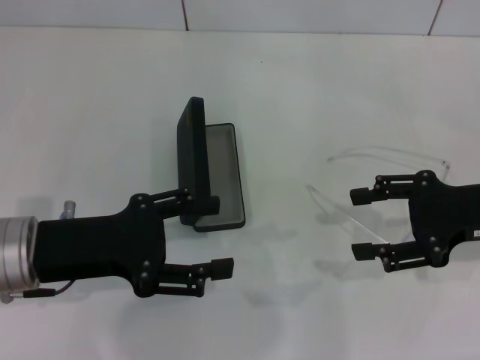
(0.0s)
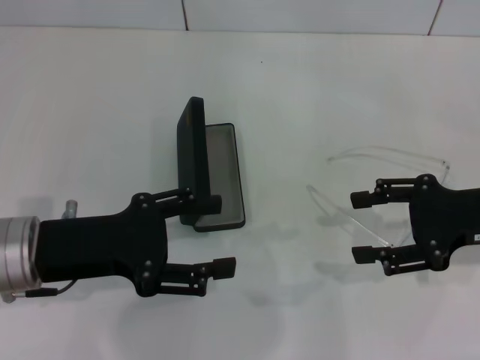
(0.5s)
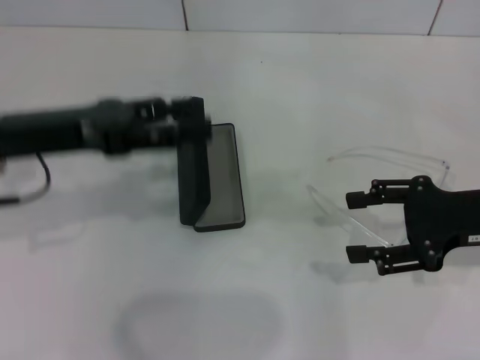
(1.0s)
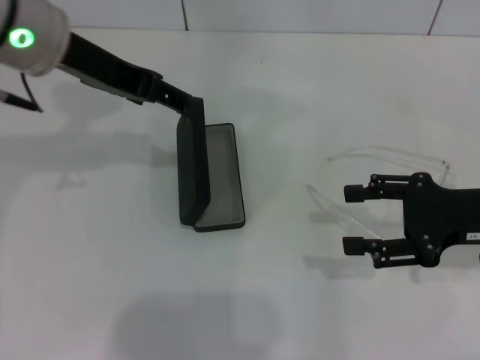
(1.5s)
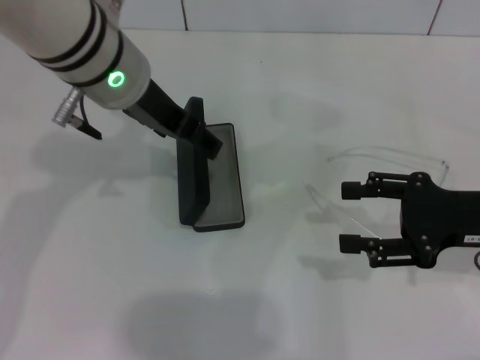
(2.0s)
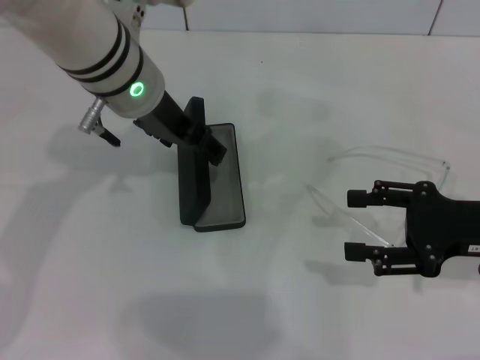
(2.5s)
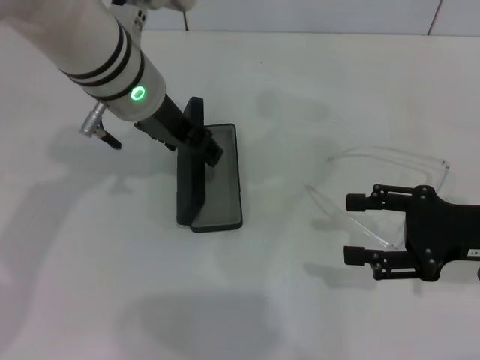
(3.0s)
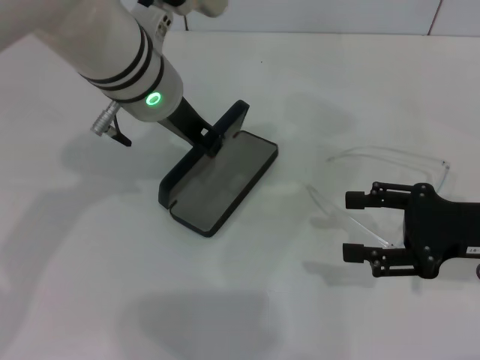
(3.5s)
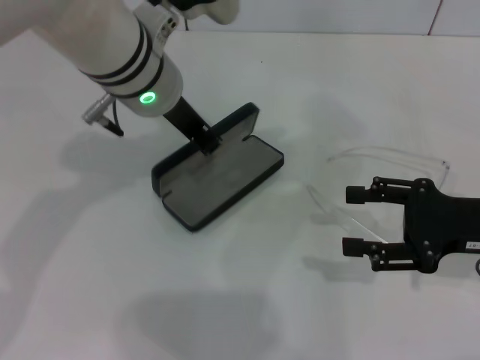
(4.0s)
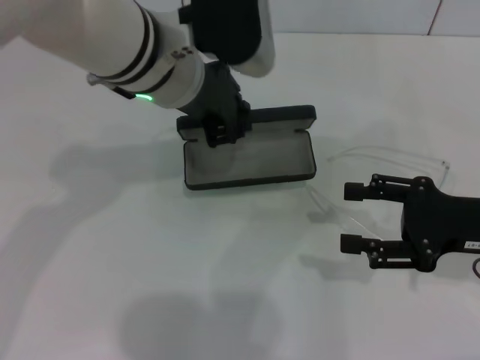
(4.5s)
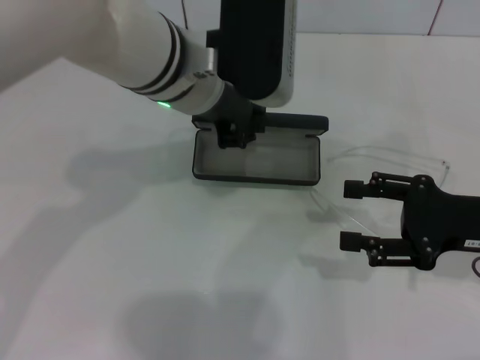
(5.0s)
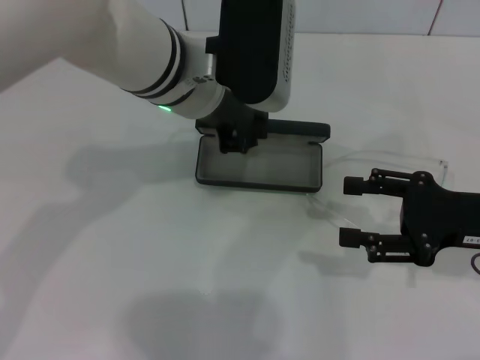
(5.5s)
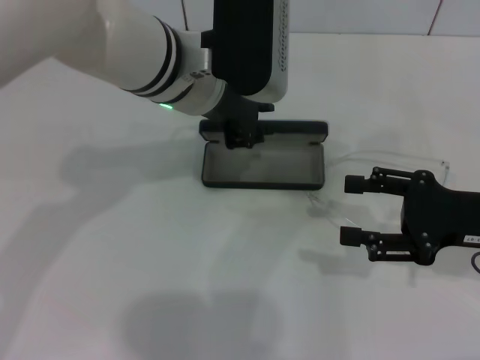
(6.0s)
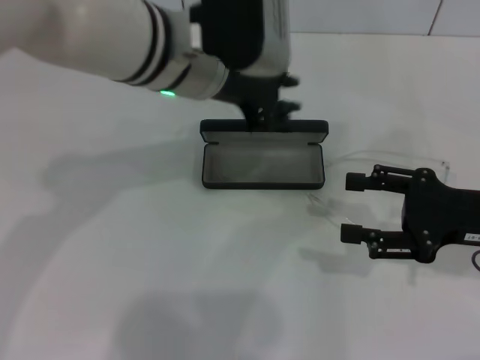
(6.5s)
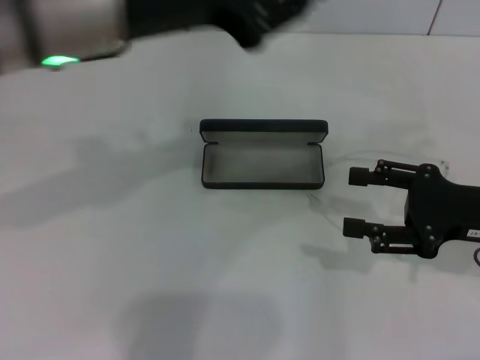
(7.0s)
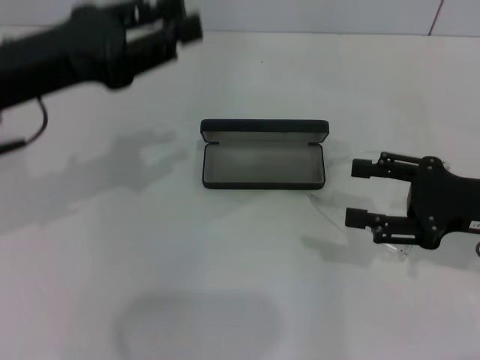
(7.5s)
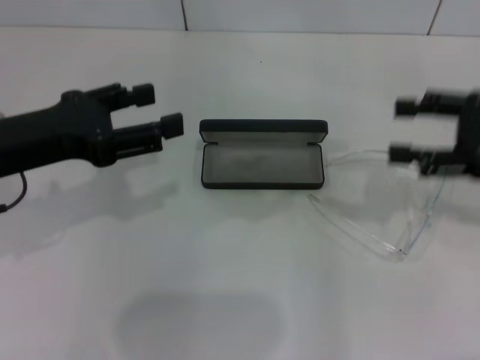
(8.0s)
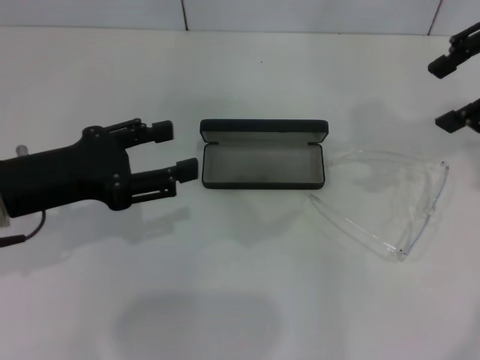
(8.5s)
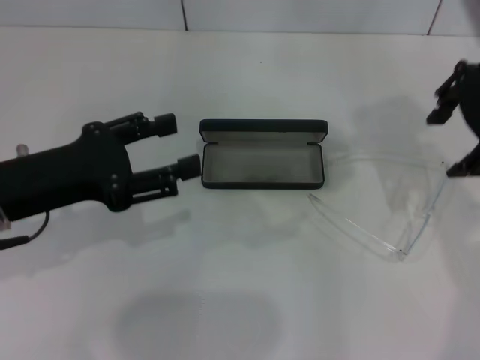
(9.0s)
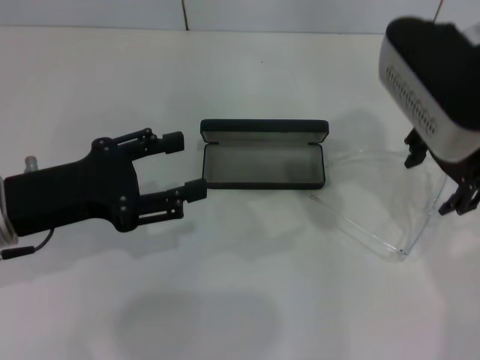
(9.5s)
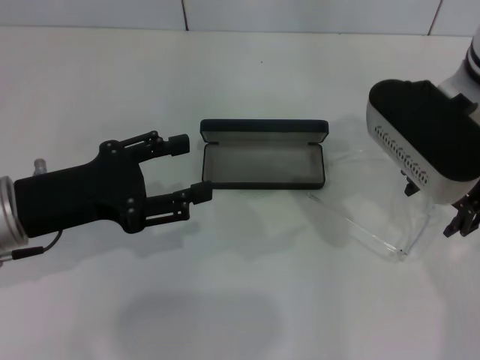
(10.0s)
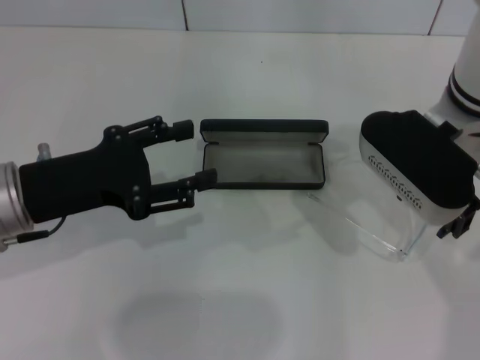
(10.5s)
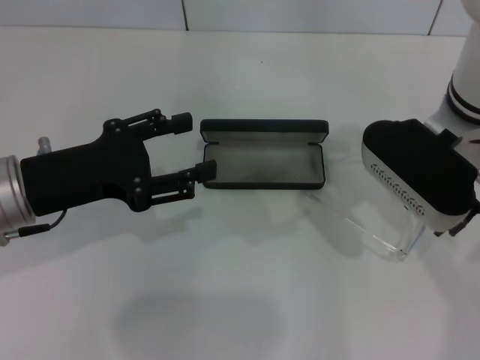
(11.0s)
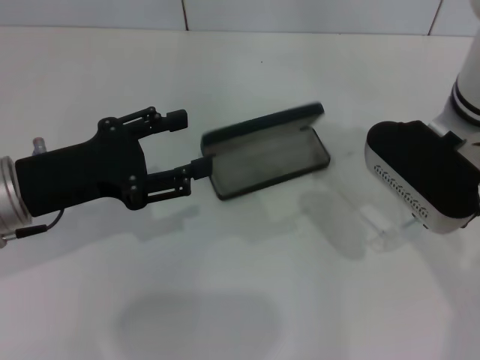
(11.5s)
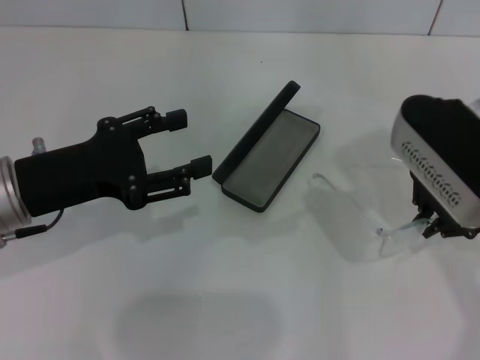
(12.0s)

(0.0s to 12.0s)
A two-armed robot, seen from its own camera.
Step, 0.0s - 3.0s: Grab the glasses case with your left hand.
Step, 3.5s - 6.0s: Place the glasses case in the center of the table with your left hand.
Step, 6.5s - 11.0s: Grab the eyeglass frame with your right hand.
0.0s - 2.0s: The left gripper moves forward, to the right and upward, some 20 cm.
2.0s - 4.0s: The left gripper closes up.
6.0s - 8.0s: The left gripper heads to the left and backward, covering approximately 20 cm, and opens up; the right gripper is displaced upward by some 10 cm.
8.0s - 10.0s: The right gripper heads to the left, covering approximately 15 cm, while the left gripper moves about 5 cm.
10.0s - 12.0s: The right gripper closes.

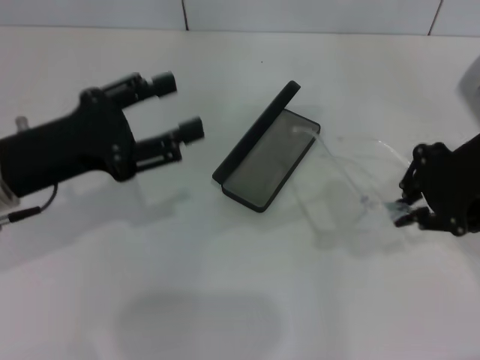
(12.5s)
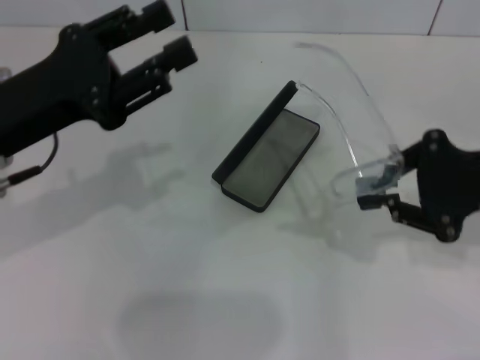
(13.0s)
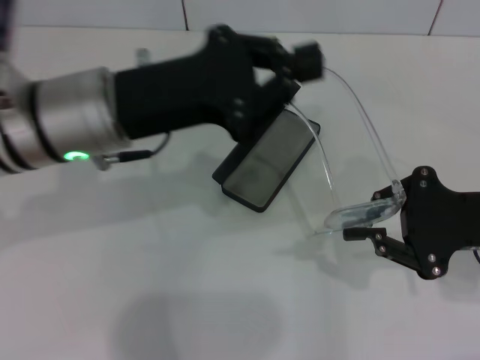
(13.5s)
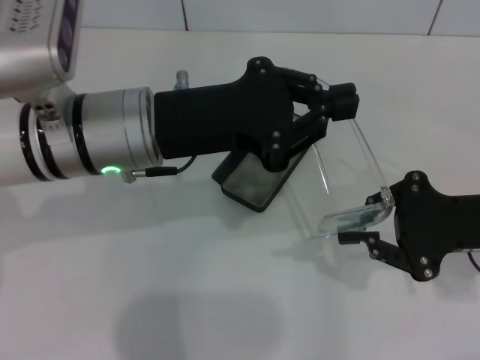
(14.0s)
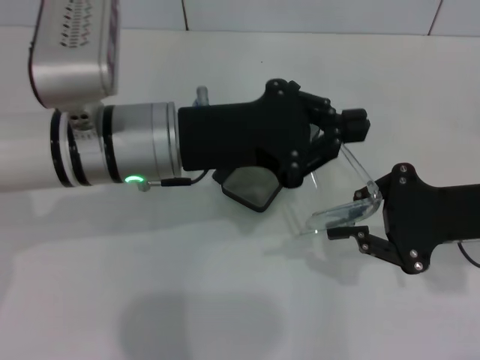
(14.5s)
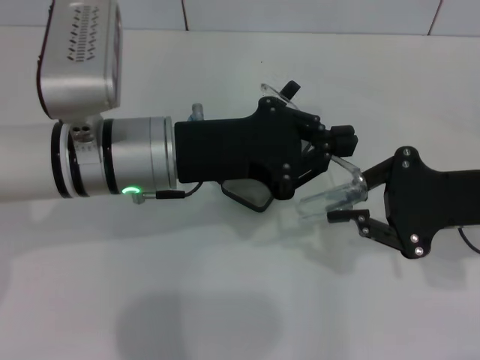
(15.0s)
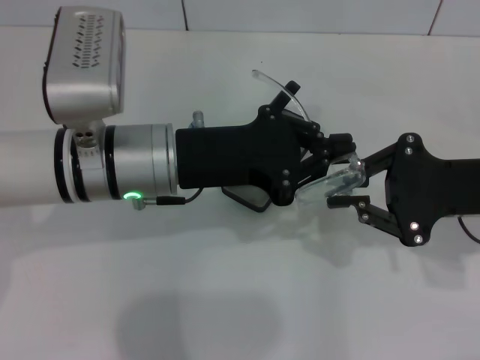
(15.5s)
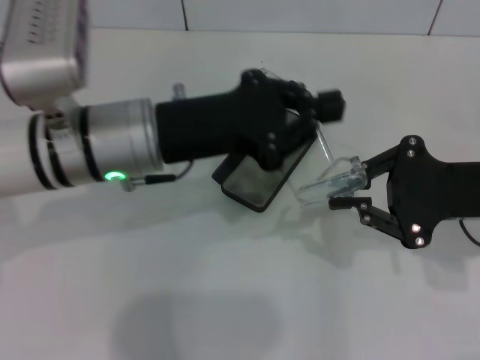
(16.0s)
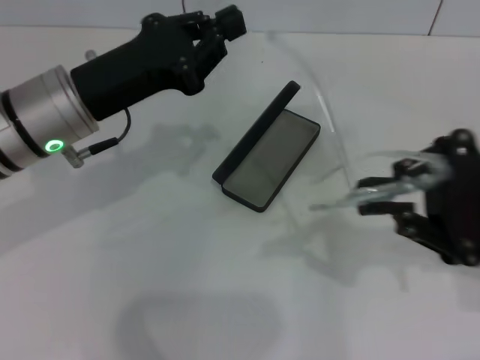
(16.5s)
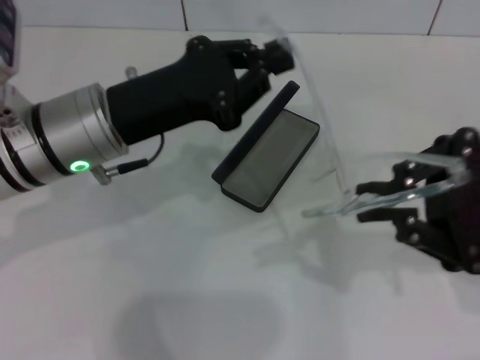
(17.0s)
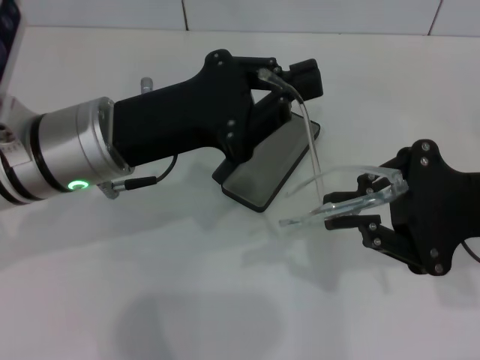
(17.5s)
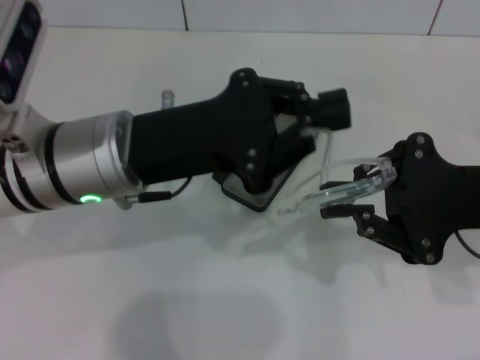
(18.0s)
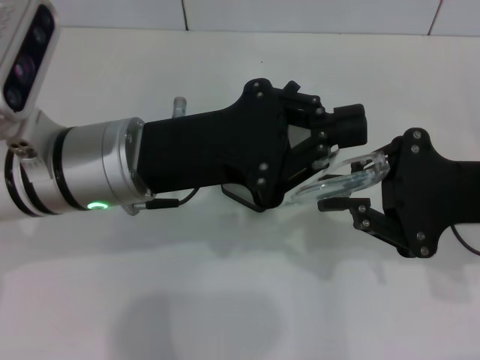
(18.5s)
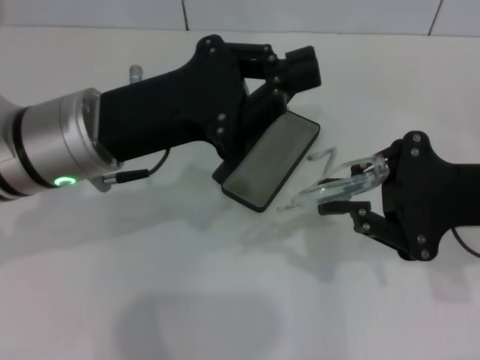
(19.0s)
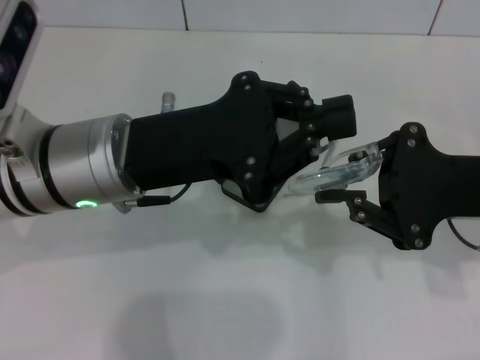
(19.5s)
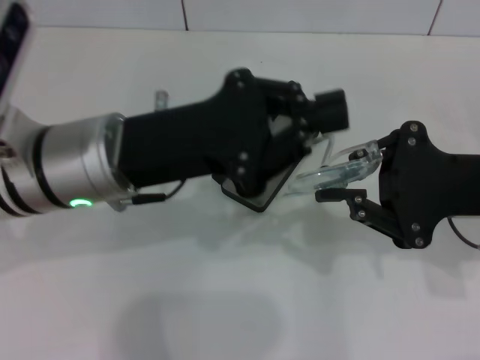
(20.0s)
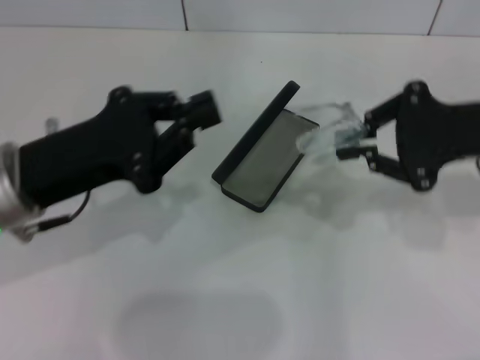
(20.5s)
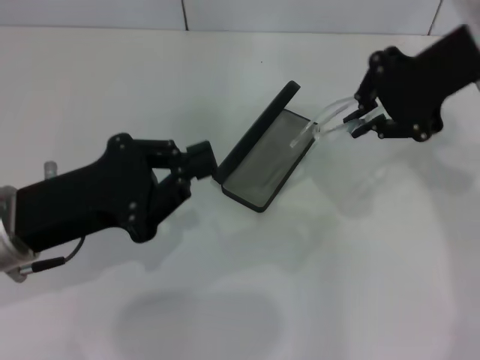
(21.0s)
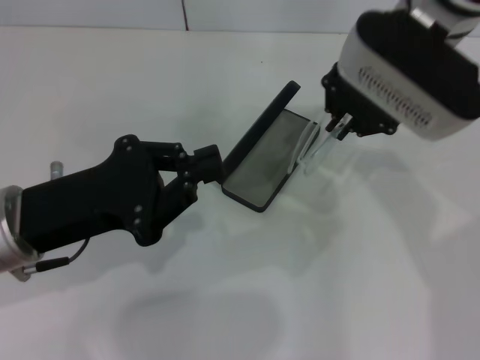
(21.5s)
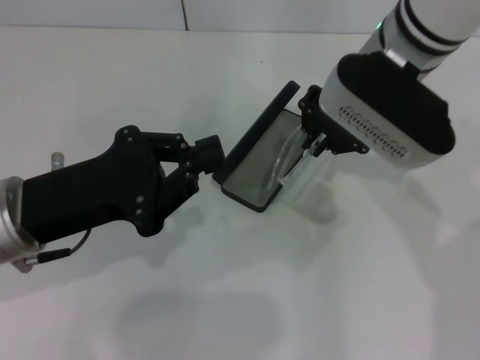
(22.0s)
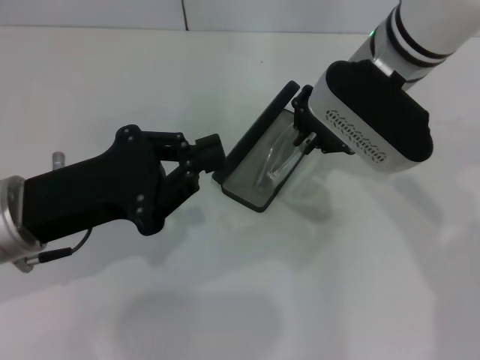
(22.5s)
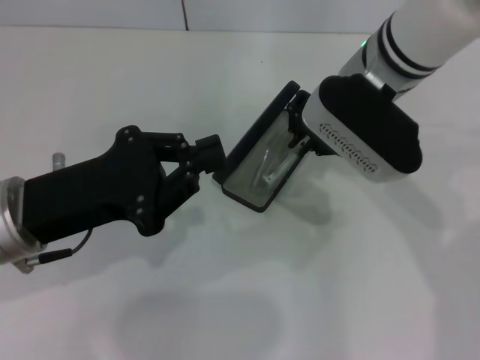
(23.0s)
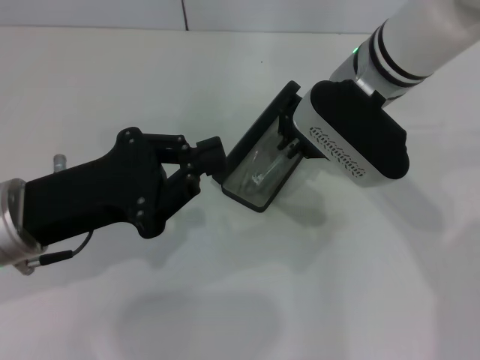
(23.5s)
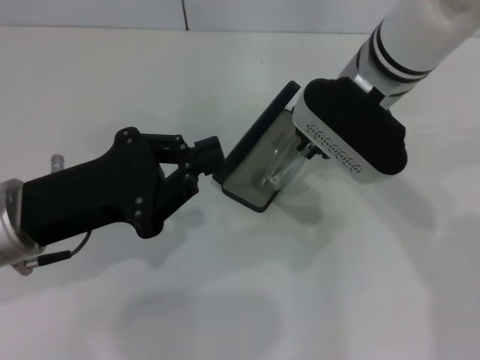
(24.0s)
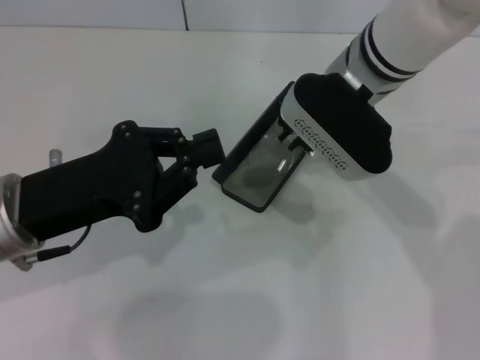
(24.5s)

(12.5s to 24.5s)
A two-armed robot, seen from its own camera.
Step, 12.5s - 19.5s: Fold the frame with your left hand.
12.5s - 14.5s: The right gripper moves downward, roughly 10 cm, while the left gripper goes approximately 15 cm to the right, and closes up.
14.5s - 16.5s: The left gripper heads to the left, covering roughly 5 cm.
16.5s - 18.5s: The left gripper heads to the right, covering roughly 5 cm.
18.5s - 20.5s: The left gripper heads to the left, covering about 10 cm, while the right gripper shifts by some 5 cm.
20.5s - 22.5s: The right gripper shifts about 15 cm to the left and forward.
22.5s - 24.5s: The grippers move only a little.

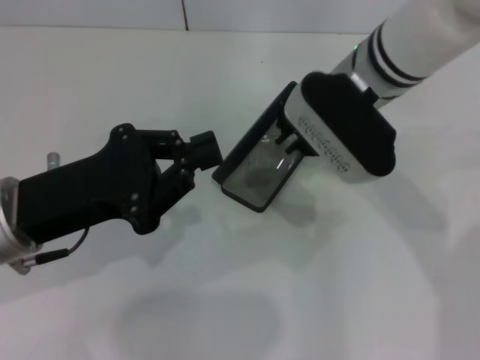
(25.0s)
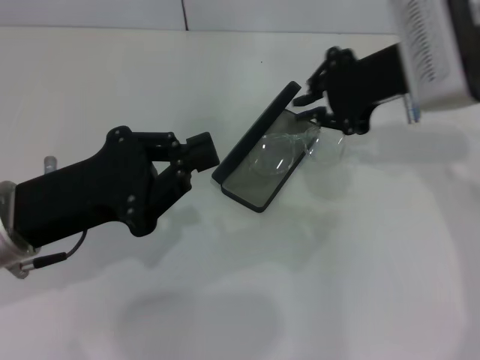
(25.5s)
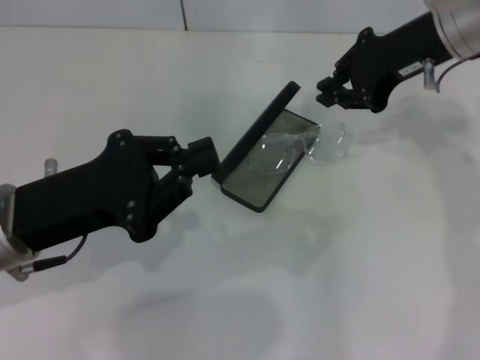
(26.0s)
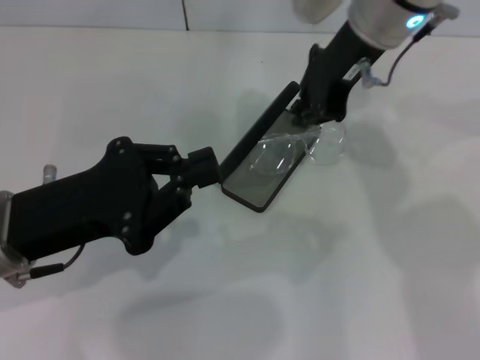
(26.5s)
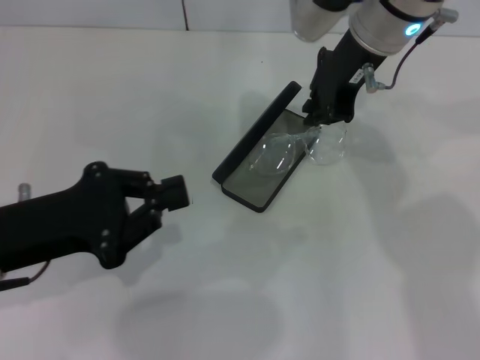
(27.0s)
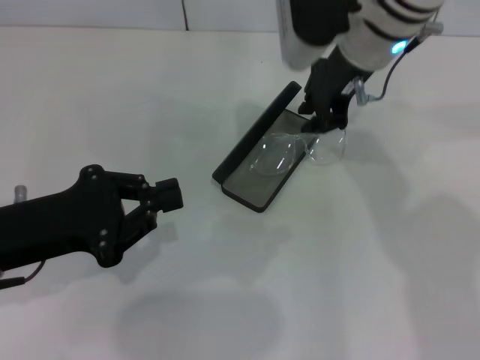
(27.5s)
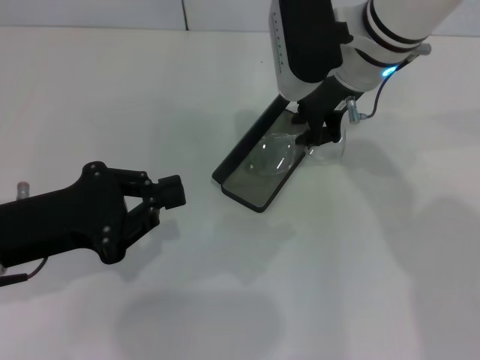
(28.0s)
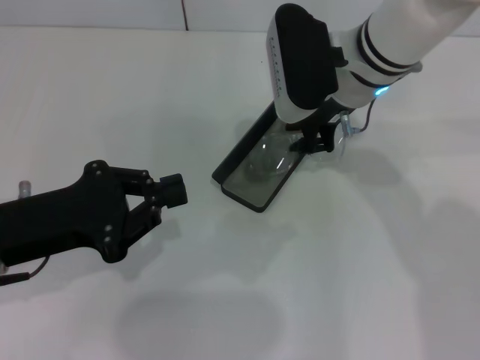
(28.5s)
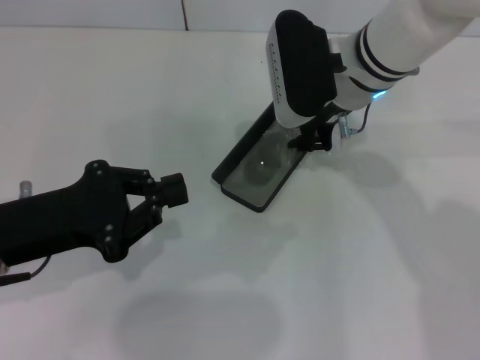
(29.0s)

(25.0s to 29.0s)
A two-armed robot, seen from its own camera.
25.0s - 27.0s: The right gripper moves approximately 10 cm to the right and comes back.
27.0s - 29.0s: The right gripper heads downward, covering approximately 5 cm.
